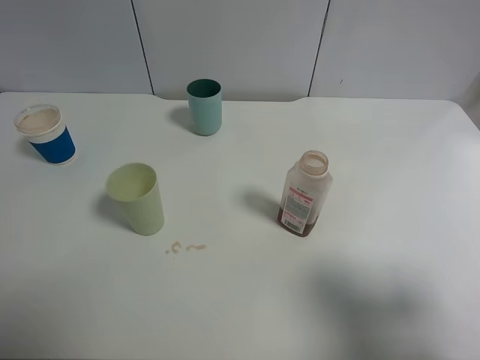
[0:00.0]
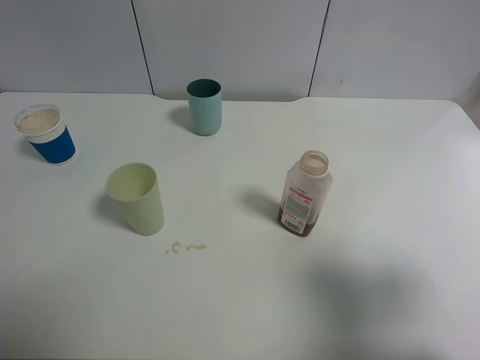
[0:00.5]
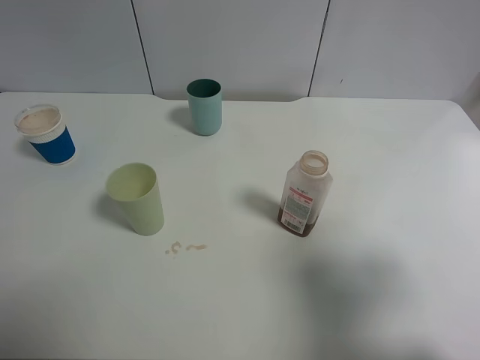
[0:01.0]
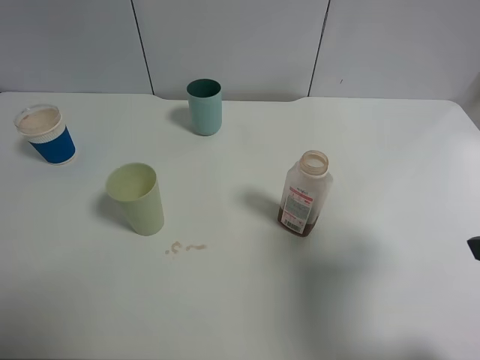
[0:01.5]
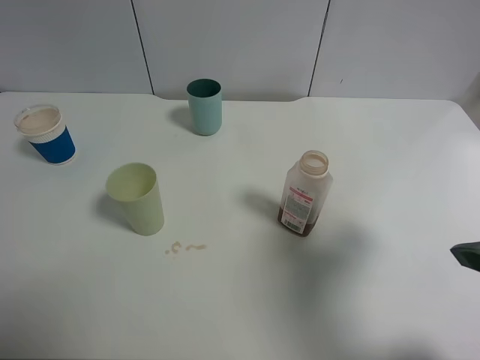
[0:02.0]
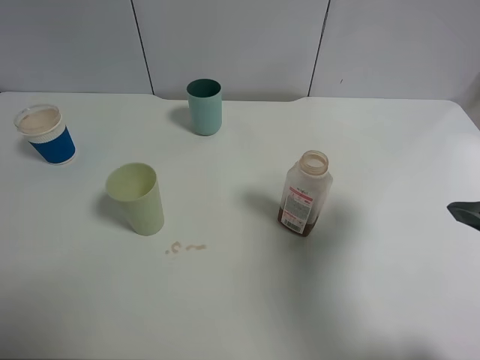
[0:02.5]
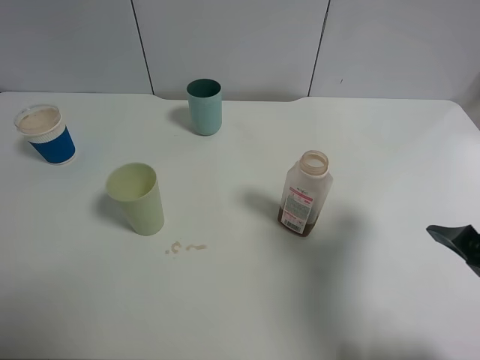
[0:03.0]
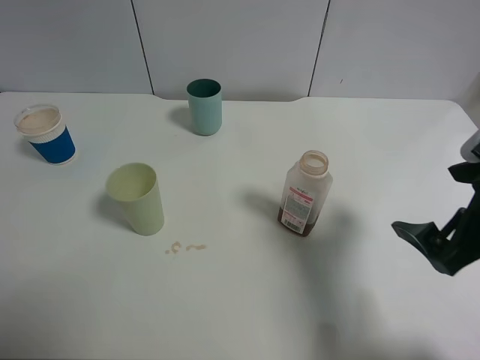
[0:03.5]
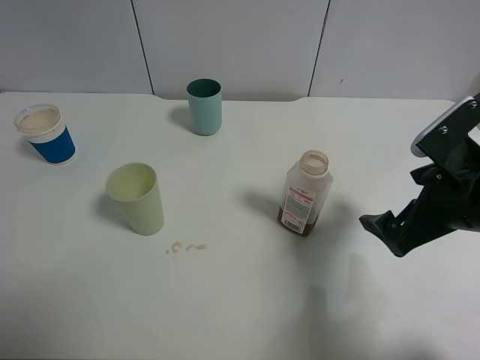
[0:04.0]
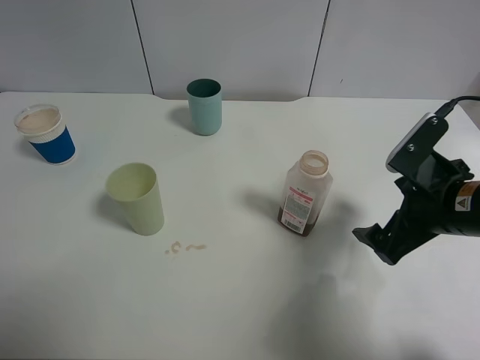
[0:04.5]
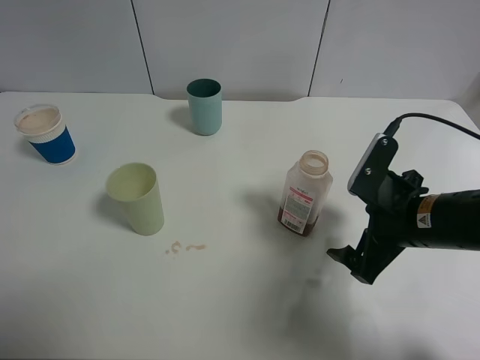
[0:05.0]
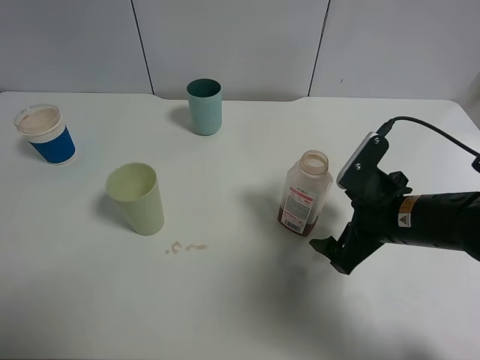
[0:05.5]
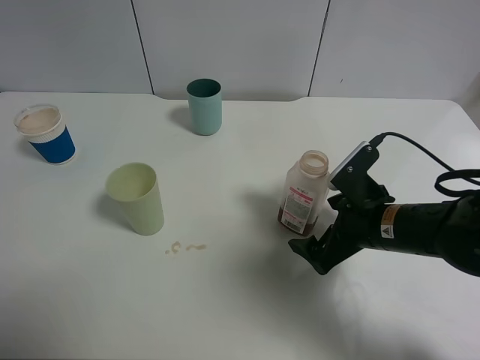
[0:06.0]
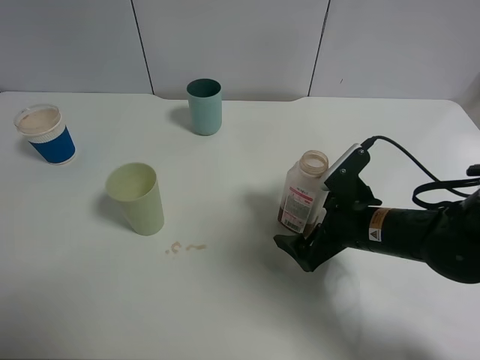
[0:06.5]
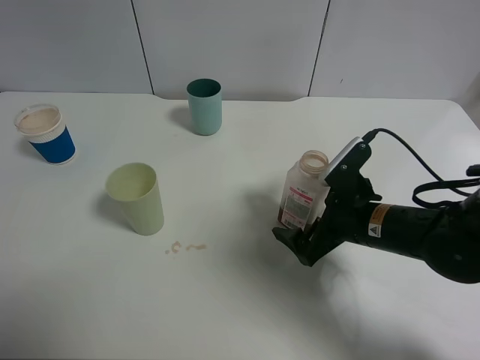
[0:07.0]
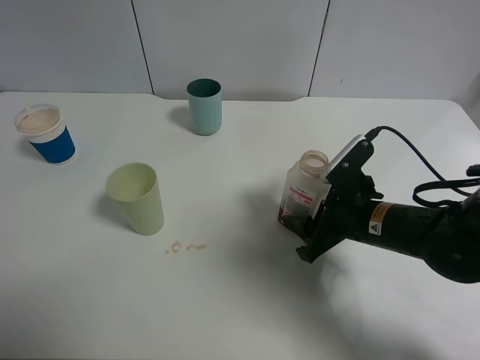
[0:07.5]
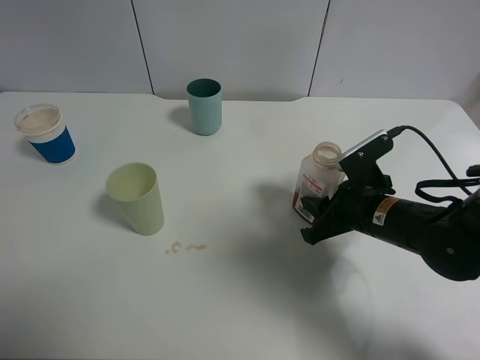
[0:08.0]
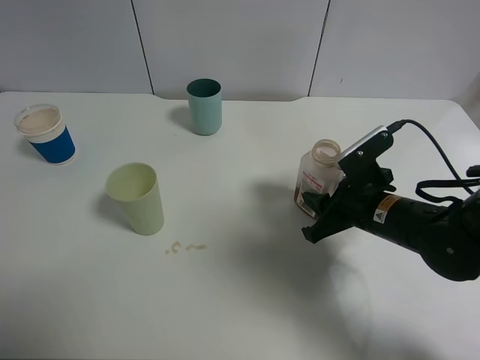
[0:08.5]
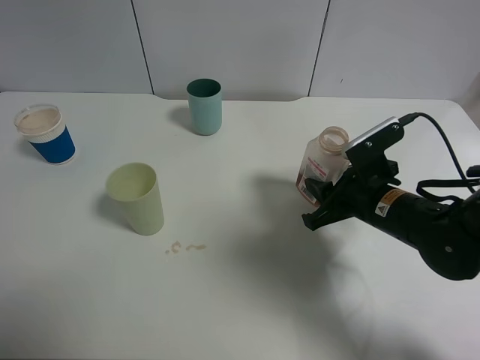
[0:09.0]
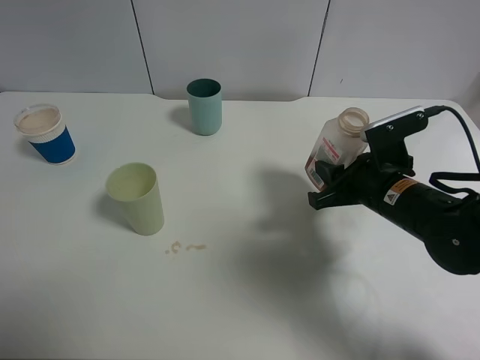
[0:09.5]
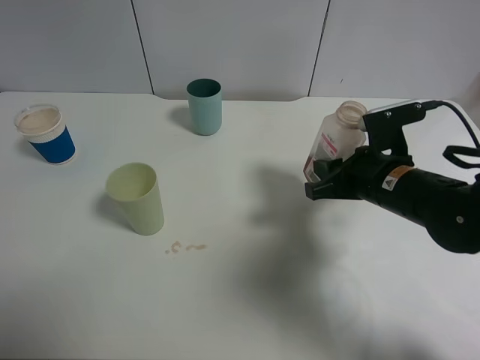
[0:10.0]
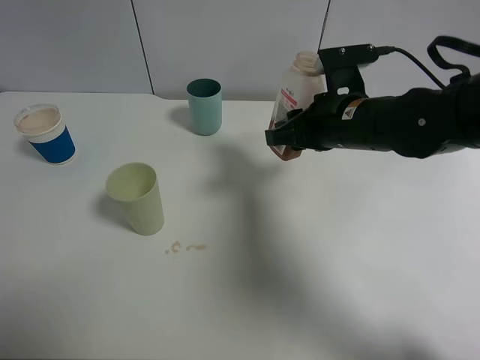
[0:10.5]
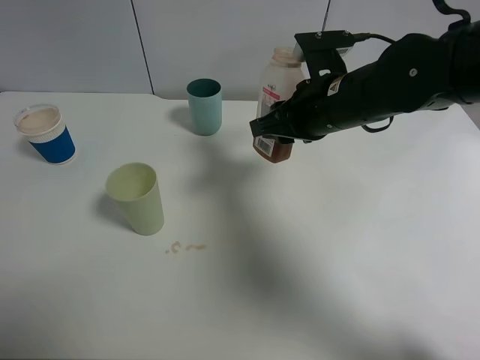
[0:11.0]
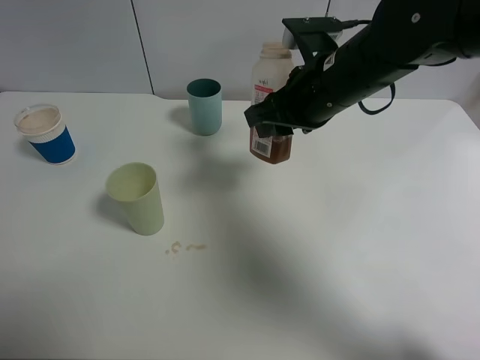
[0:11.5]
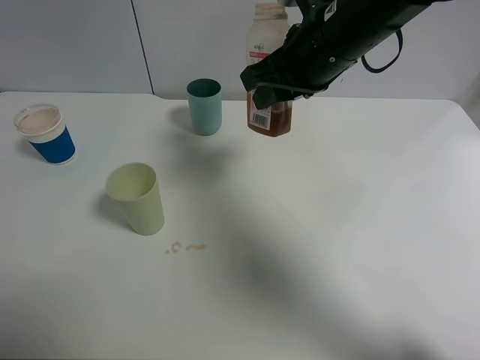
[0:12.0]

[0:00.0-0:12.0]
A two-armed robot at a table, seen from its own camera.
Task of the whole recording: use a clamp to hold the bottle of the drink, pour the beverage into a random cup, then clamp the cup containing the drink and pour the drink into another random cup.
Step, 0:00.0 to 0:09.0: Grasp the drink bottle with right gripper.
0:00.0 to 0:02.0: The right gripper travels forward by approximately 10 cm.
0:02.0 to 0:04.0: The right gripper is displaced downward and forward by some 10 cm.
0:04.0 to 0:06.0: The right gripper heads downward and to the left, covering some 10 cm.
0:06.0 to 0:08.0: The right gripper closes its fingers.
0:08.0 to 0:10.0: The grippers move only a little.
0:10.0 to 0:12.0: The right gripper is displaced upward, to the left and forward by approximately 20 cm.

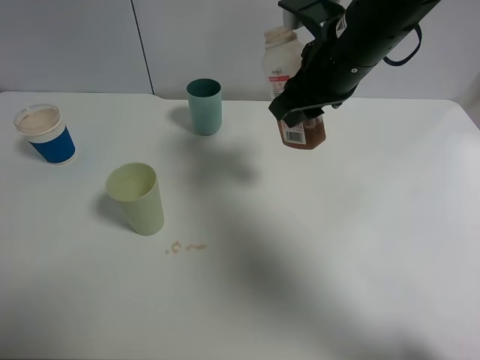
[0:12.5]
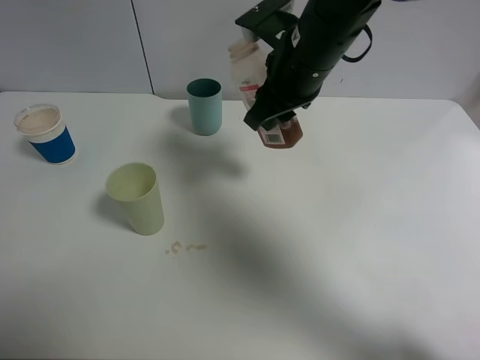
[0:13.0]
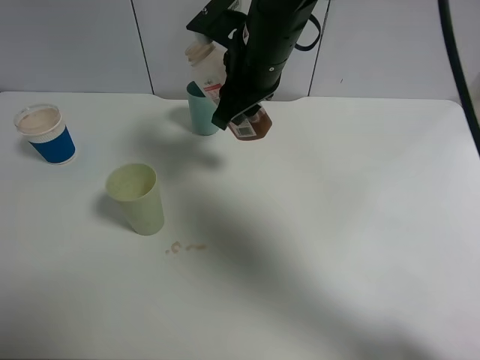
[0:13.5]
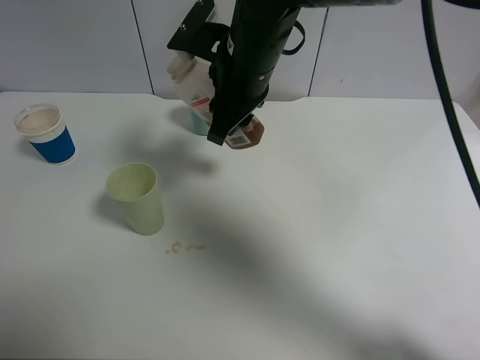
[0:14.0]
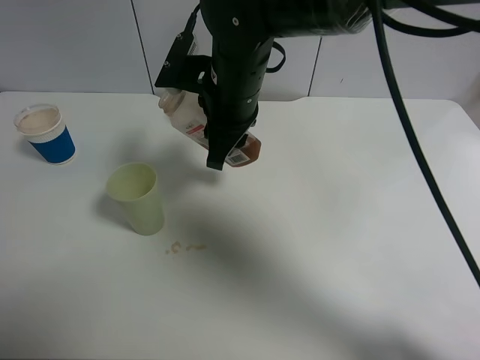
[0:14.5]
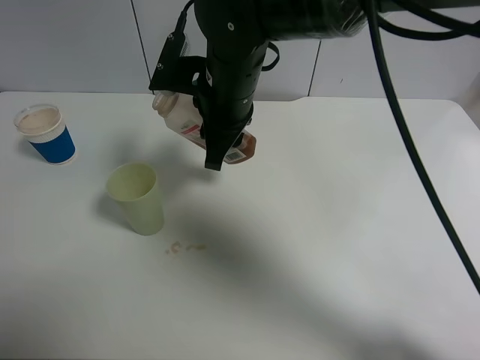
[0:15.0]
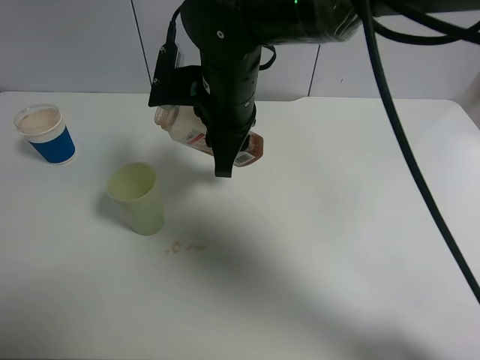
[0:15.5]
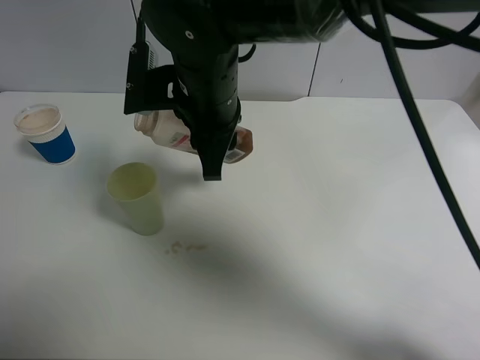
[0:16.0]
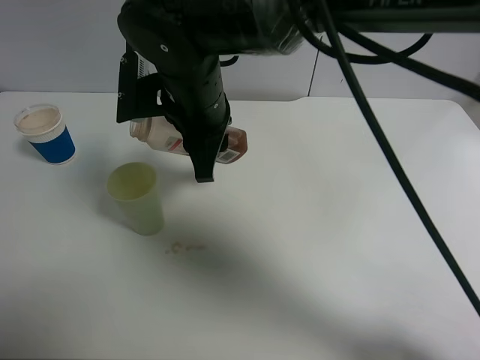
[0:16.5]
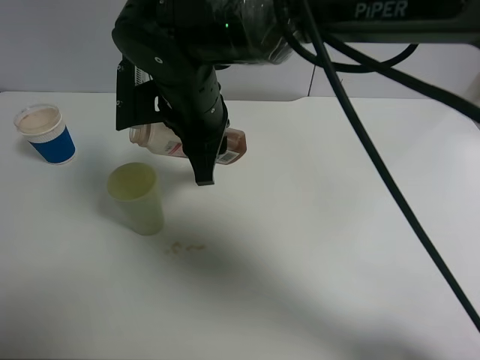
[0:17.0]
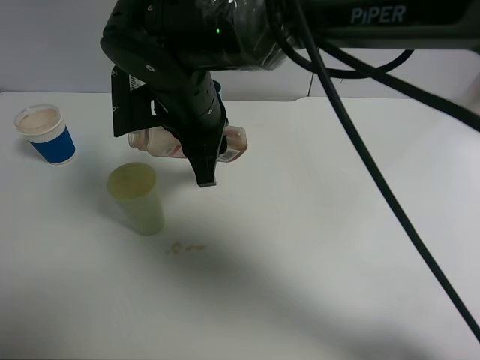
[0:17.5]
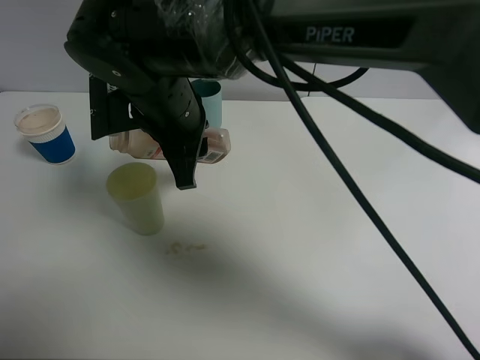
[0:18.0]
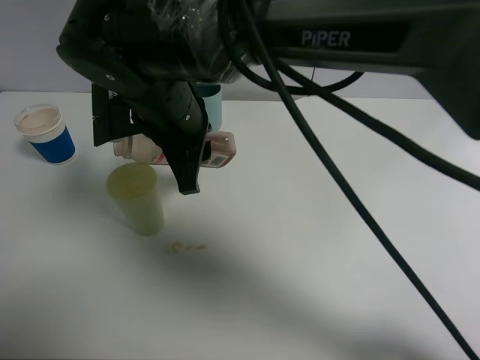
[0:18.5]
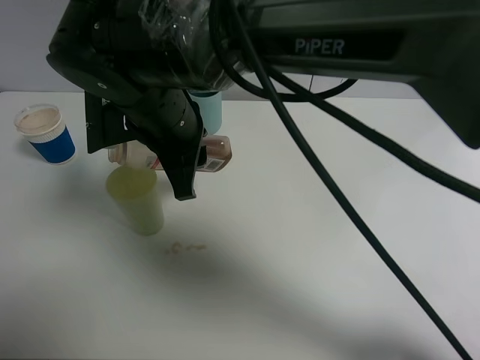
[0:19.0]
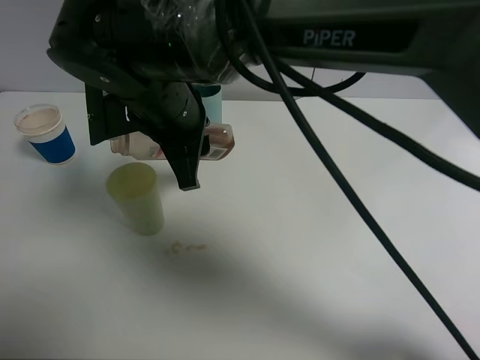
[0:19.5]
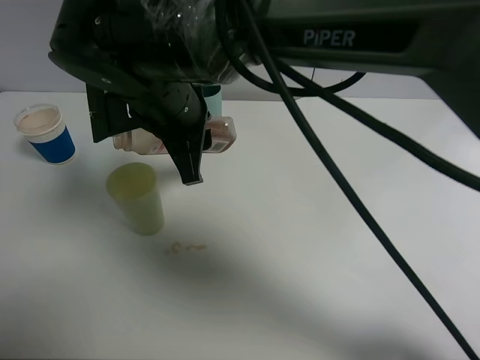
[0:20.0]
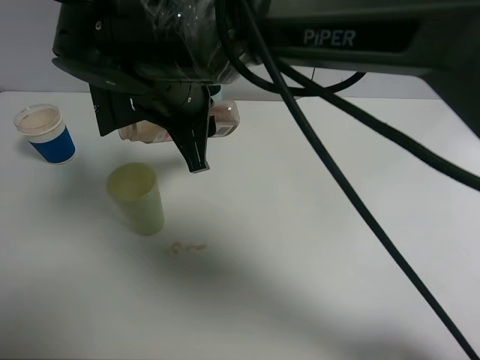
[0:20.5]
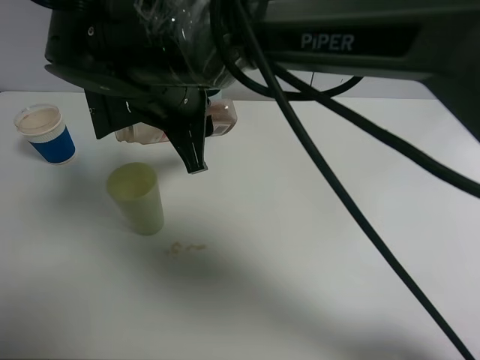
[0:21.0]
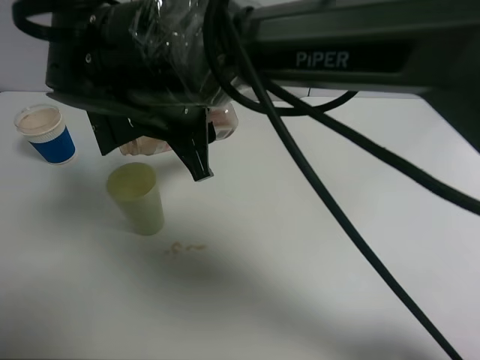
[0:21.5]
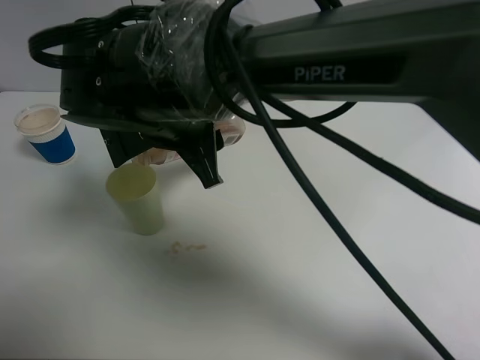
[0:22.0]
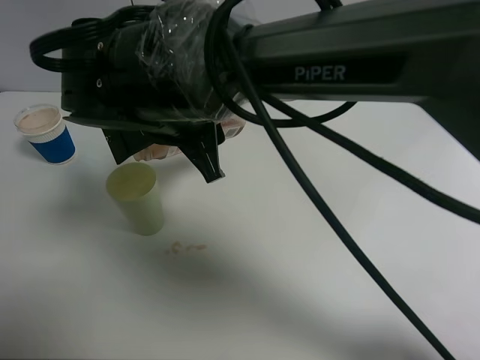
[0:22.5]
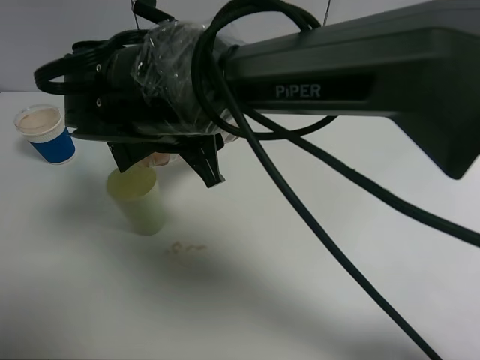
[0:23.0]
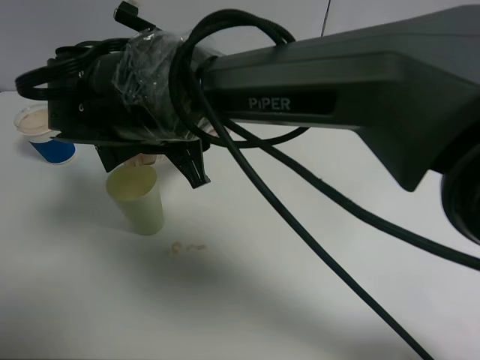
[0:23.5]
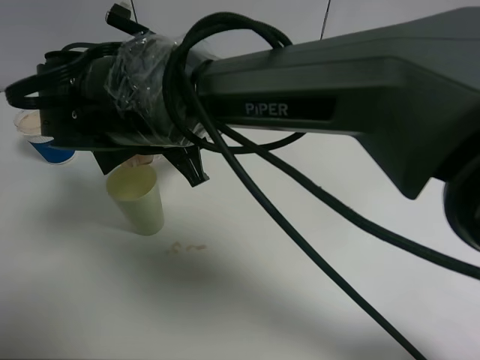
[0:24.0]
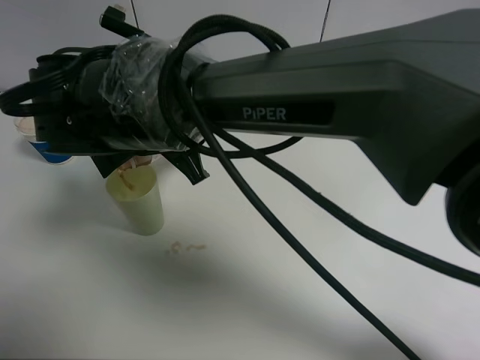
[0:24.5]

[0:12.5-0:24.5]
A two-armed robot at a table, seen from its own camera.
Task of the whole recording: use a clamp to hold the bottle of the drink, pour the beverage into a random cup, then clamp the cup containing the drink and pour the drink into another random cup.
0:12.5 to 0:14.5: The right gripper moves to the left, approximately 10 cm.
0:14.5 to 0:16.5: The right gripper ends up some 5 cm from where it was.
0:18.5 to 0:20.5: The grippers stay close to where they were, moving slightly.

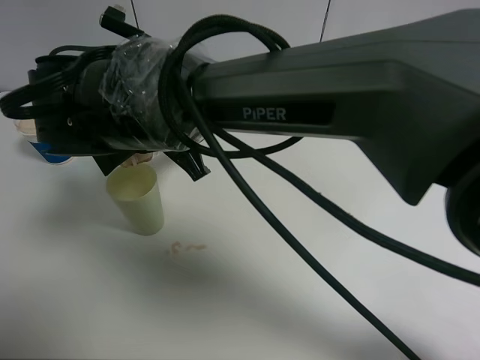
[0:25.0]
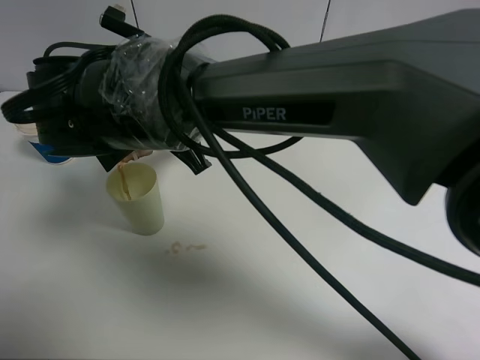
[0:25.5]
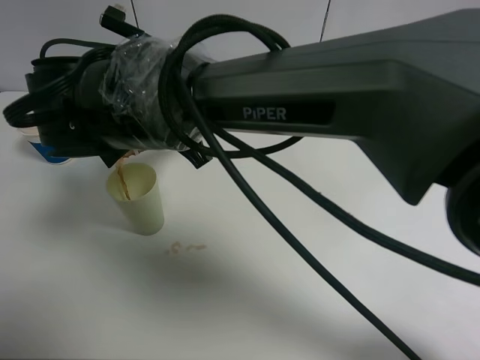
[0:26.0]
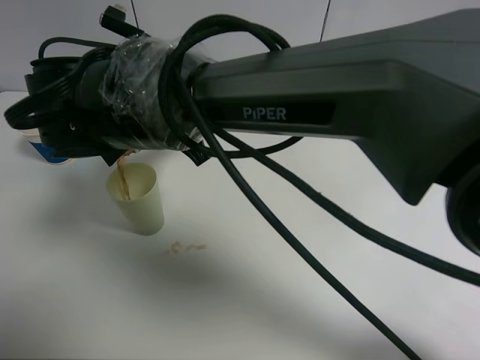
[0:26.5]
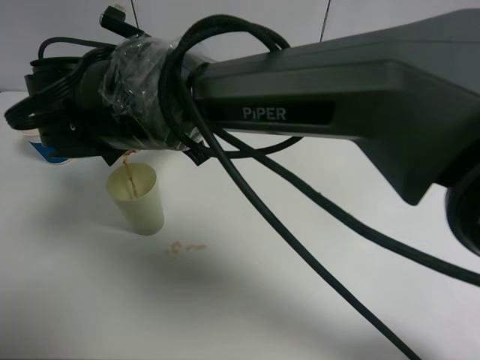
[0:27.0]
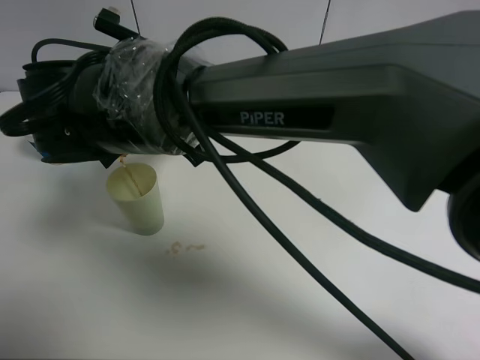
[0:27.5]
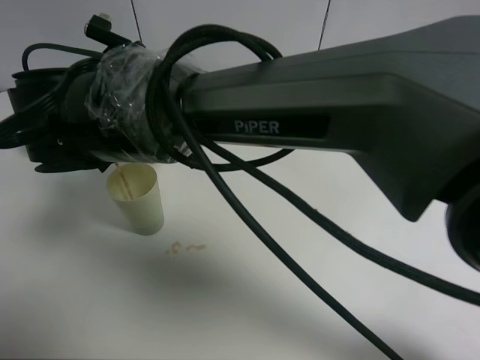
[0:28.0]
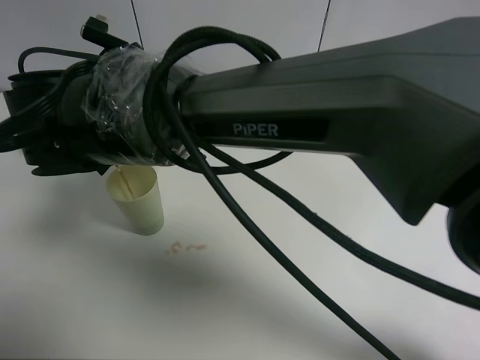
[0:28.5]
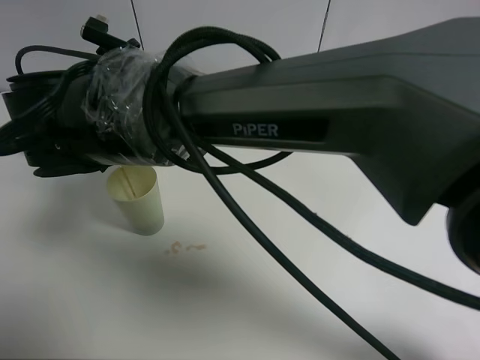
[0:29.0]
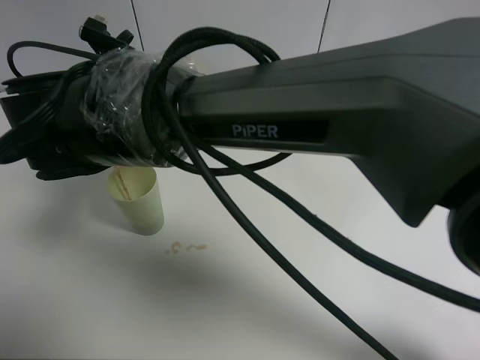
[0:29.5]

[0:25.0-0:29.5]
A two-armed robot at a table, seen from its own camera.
Task of the whole recording: use a clamp to hold the bottle of the drink, pour the beverage into a random cup, then clamp the cup containing the drink and pour the drink into another random cup.
0:25.0 to 0:27.0: The grippers move only a little.
